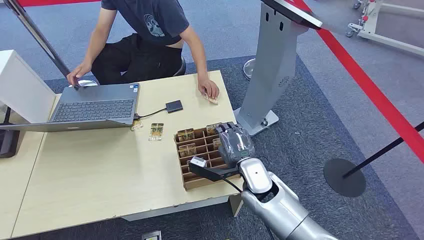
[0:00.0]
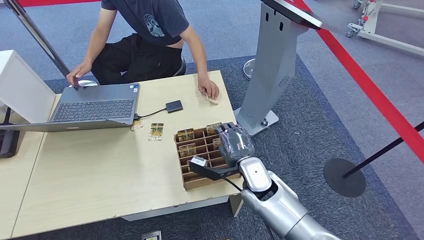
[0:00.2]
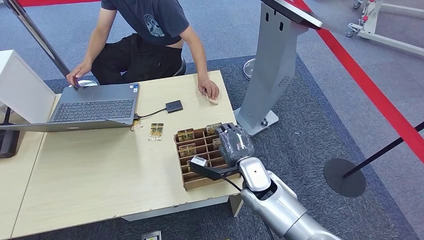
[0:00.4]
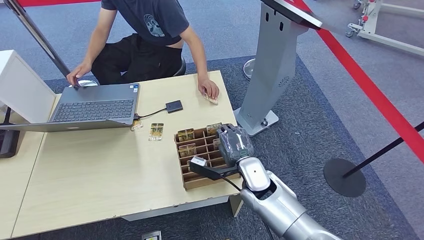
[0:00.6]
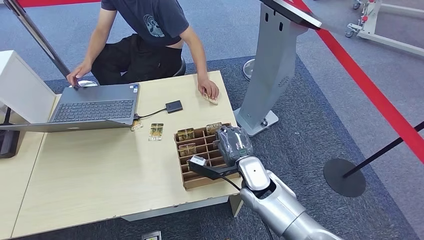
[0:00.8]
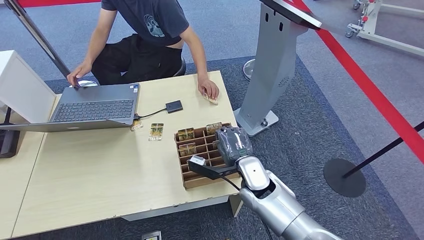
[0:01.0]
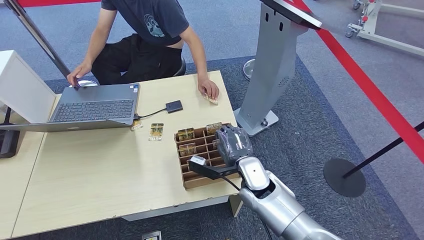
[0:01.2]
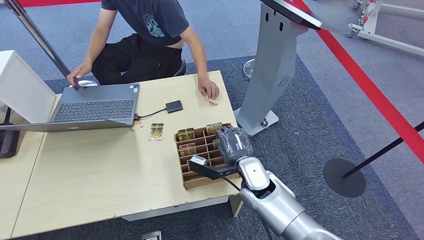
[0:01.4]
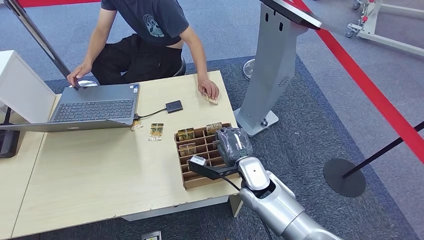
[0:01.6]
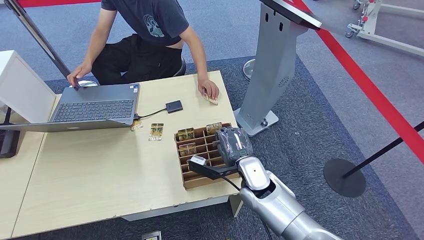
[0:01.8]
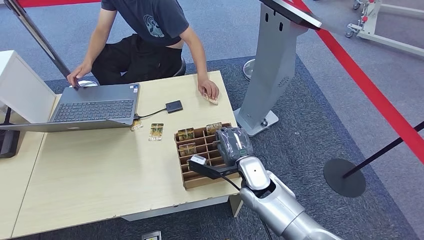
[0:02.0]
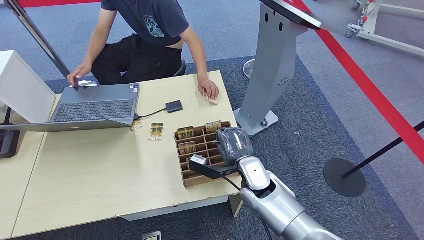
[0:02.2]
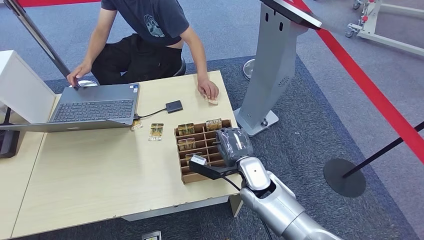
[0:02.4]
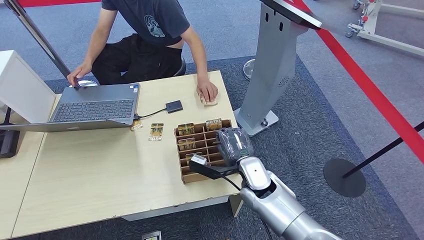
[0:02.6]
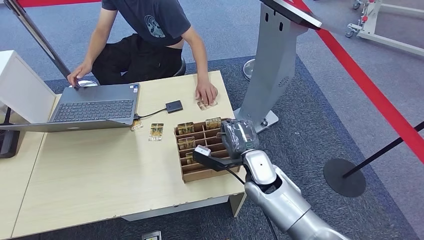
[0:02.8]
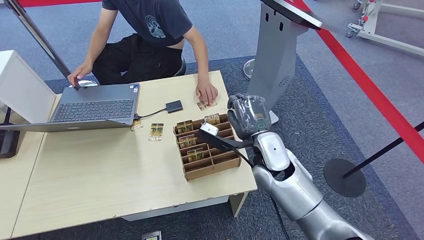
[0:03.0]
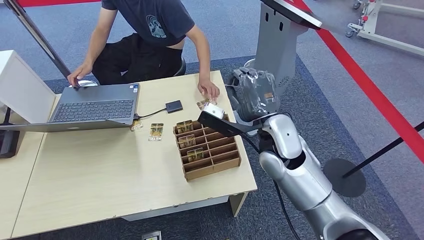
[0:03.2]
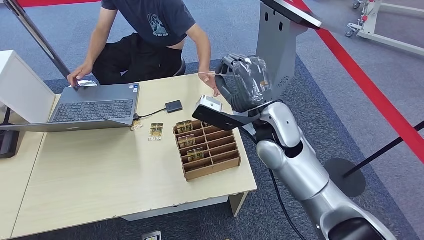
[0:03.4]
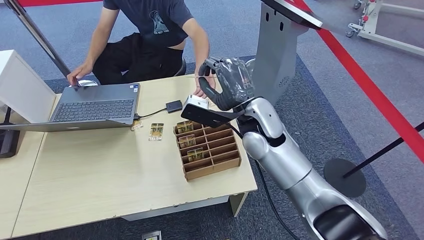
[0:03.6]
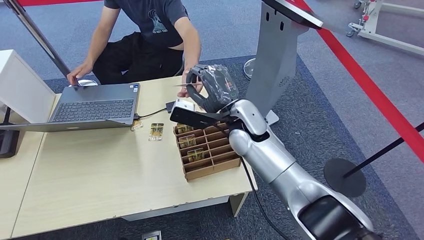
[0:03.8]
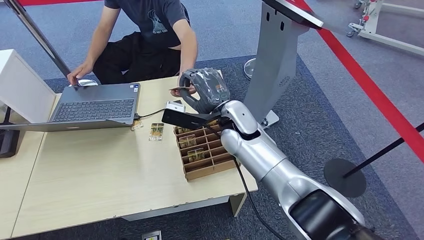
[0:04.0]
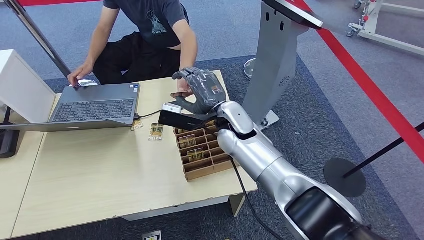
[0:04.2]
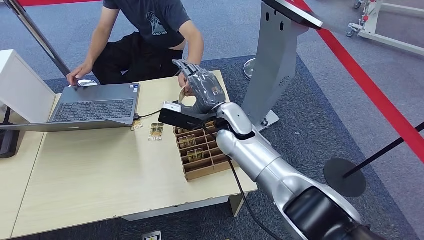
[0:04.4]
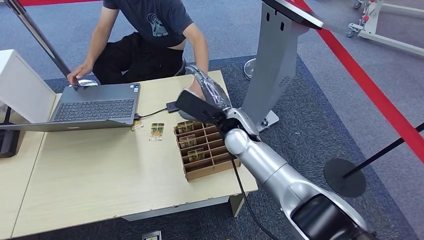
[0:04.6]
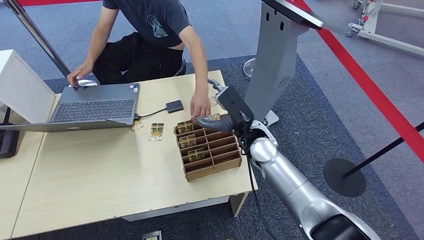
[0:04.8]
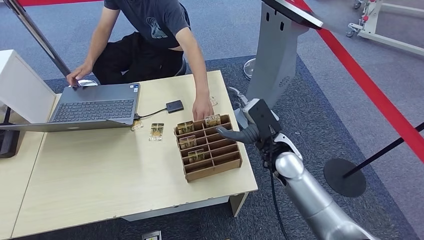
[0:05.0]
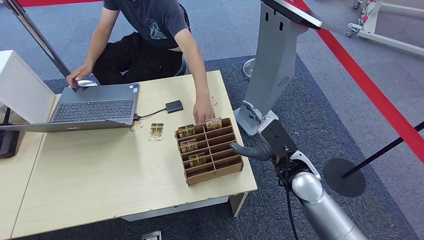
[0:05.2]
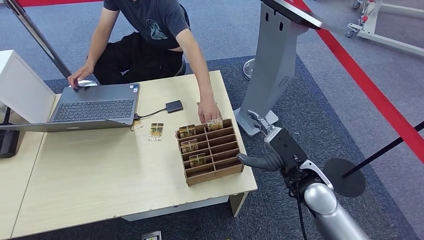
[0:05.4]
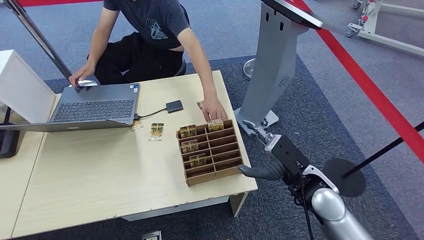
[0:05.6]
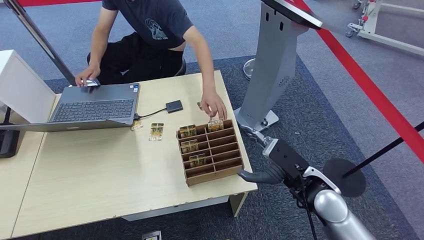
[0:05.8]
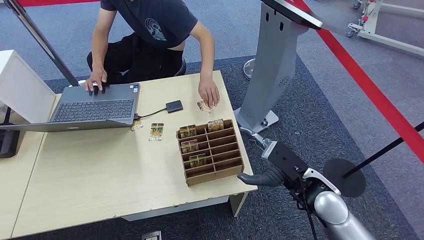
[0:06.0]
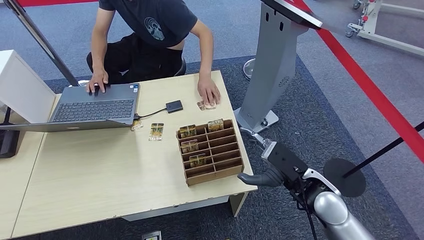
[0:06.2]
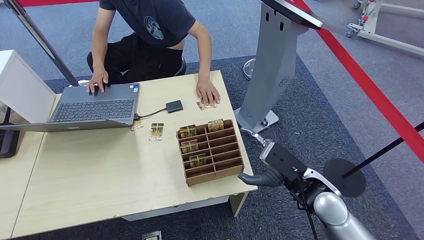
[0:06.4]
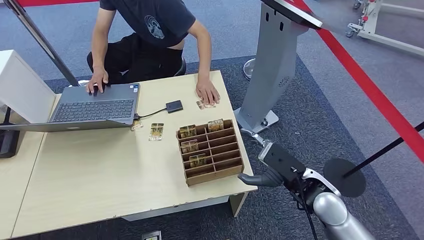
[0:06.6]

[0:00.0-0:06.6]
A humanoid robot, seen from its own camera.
Step, 0:00.0 to 0:02.6: Pick up the room card from the card holder.
Step, 0:02.8 to 0:06.4: Hand the room card to the target.
0:01.6 to 0:03.2: The right hand shifts some 15 cm upward.
0:03.2 to 0:05.0: The right hand is displaced downward by about 10 cm, and goes to the left and returns, roughly 10 cm each way.
0:05.0 to 0:06.6: The right hand heads backward and to the right, covering approximately 10 cm.

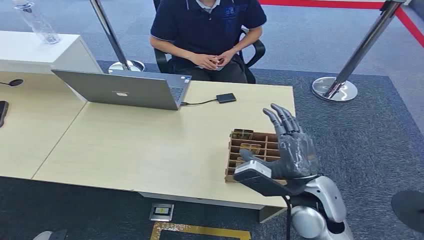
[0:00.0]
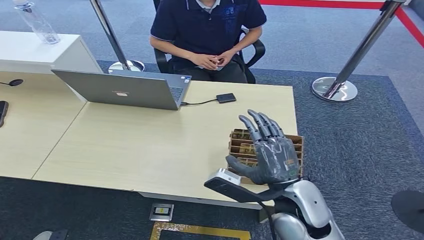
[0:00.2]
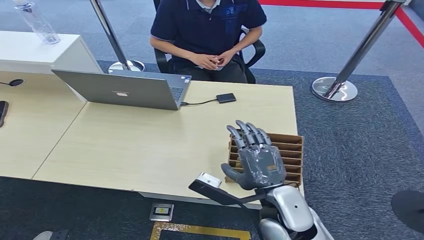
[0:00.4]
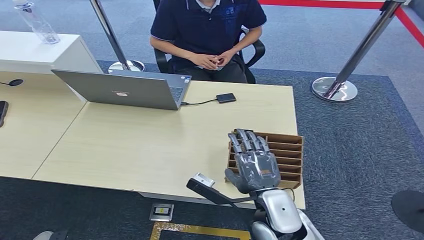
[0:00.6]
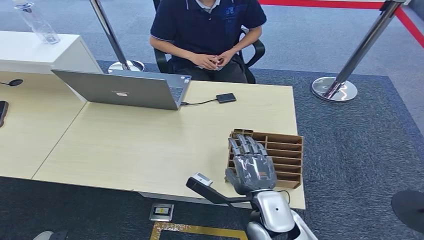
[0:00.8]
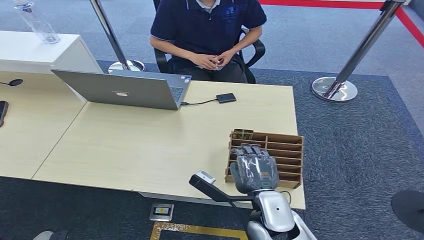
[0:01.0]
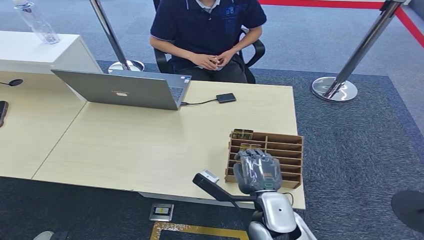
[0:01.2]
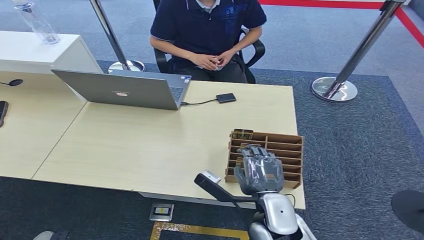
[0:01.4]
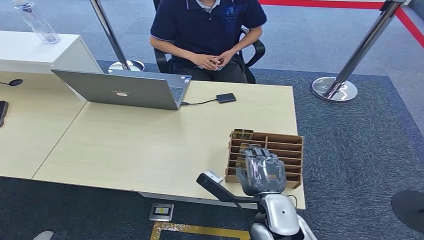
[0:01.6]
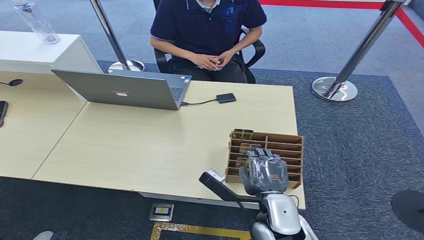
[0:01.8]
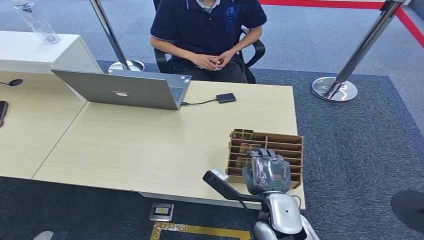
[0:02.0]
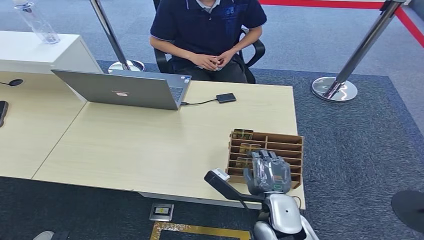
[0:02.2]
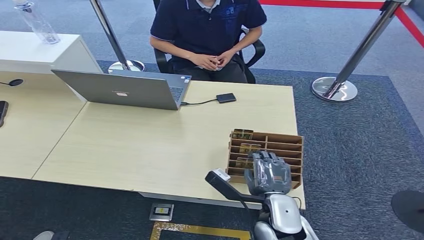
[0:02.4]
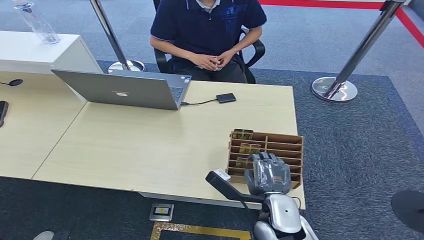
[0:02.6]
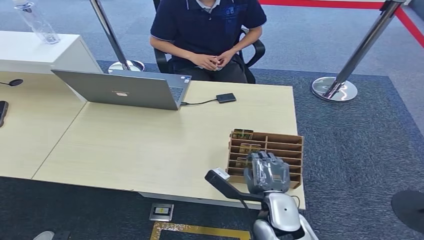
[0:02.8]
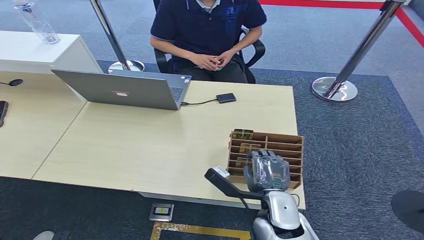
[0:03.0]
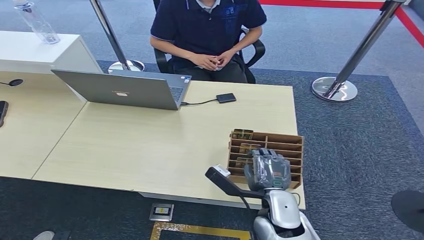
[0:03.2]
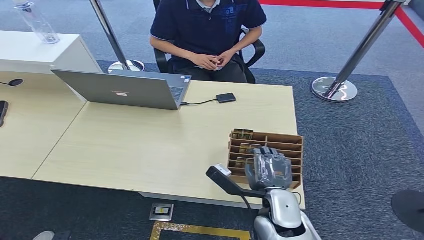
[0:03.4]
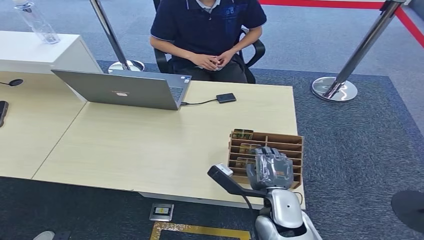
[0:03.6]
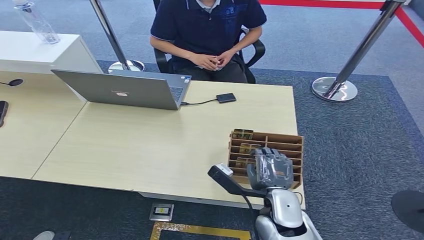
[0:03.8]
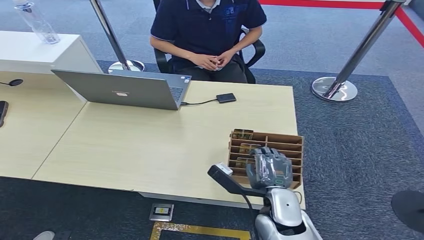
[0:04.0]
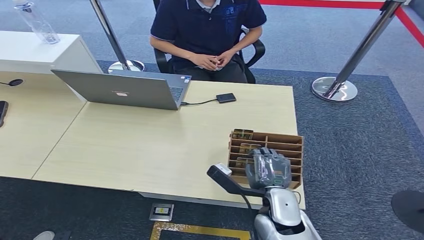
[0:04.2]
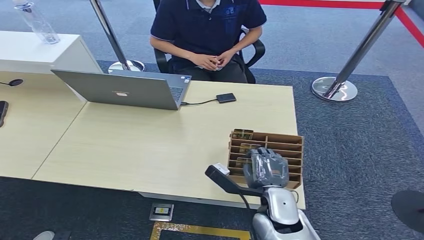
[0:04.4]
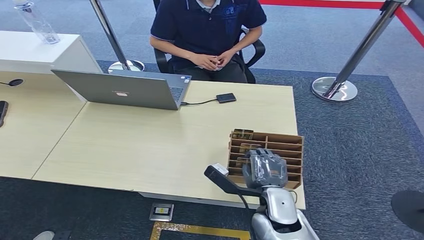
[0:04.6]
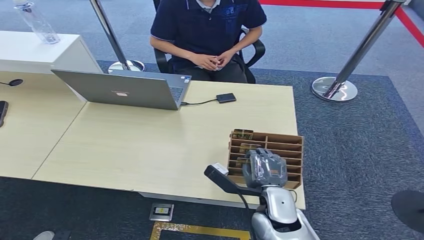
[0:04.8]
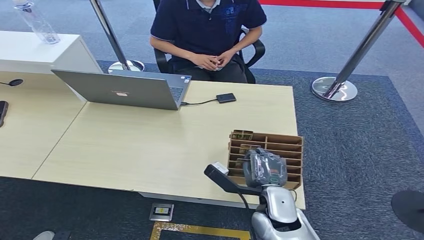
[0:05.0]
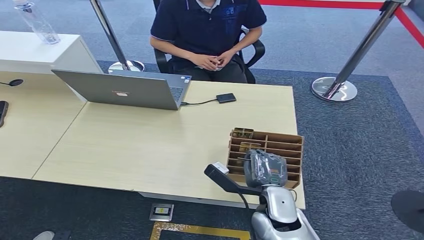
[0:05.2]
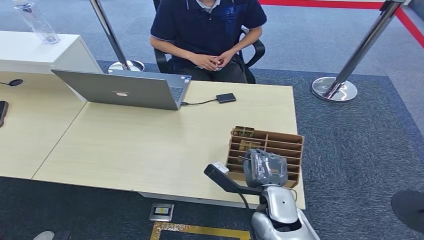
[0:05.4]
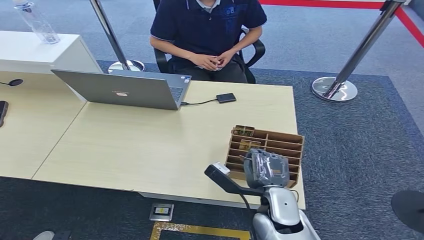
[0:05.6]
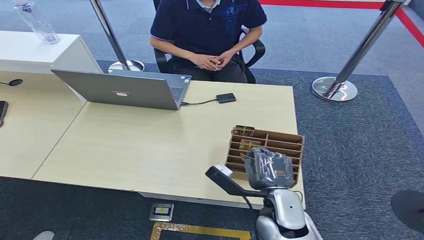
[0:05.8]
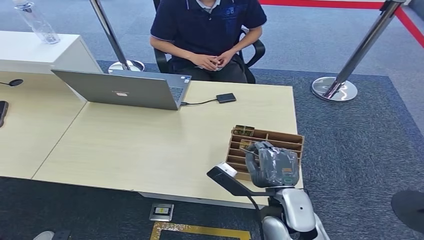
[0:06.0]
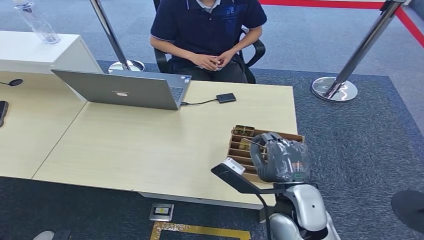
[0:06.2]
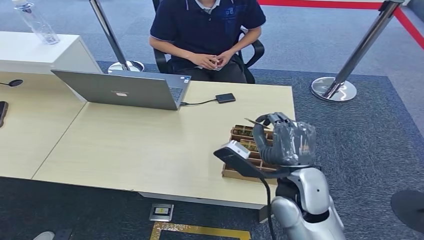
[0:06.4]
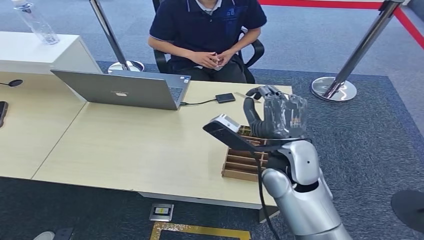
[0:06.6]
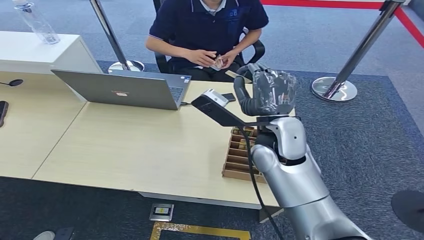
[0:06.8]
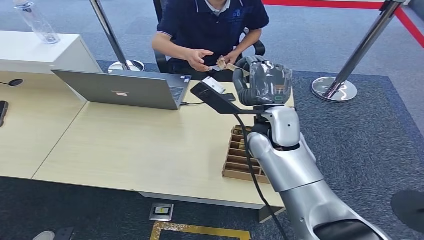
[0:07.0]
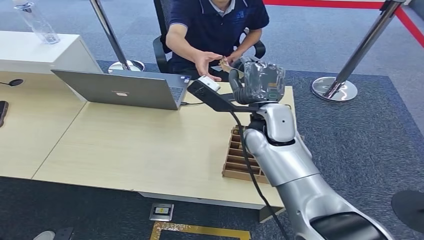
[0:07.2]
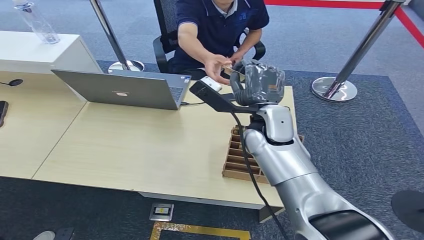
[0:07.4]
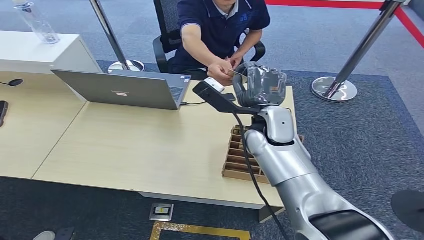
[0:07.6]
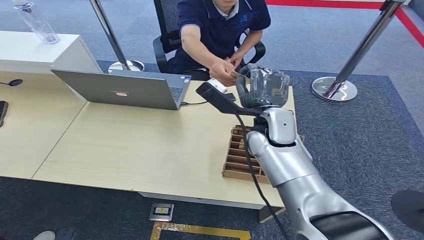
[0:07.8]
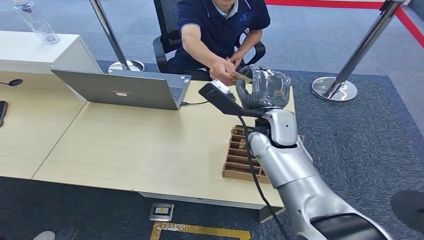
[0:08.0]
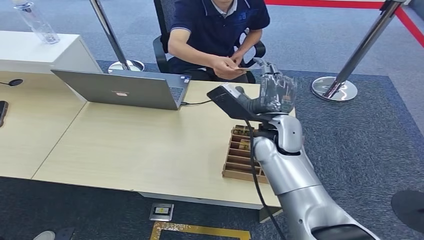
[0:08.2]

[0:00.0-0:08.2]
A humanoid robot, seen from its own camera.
Step, 0:00.0 to 0:06.2: Pick up the room card from the card holder.
Step, 0:06.6 to 0:08.2: Hand the room card to the target.
0:01.6 to 0:03.2: The hands make only small movements.
0:03.2 to 0:05.0: Both hands stay about where they are.
0:05.0 to 0:06.6: The right hand heads upward and forward, covering some 15 cm.
0:06.6 to 0:08.2: The right hand travels forward by about 5 cm.
